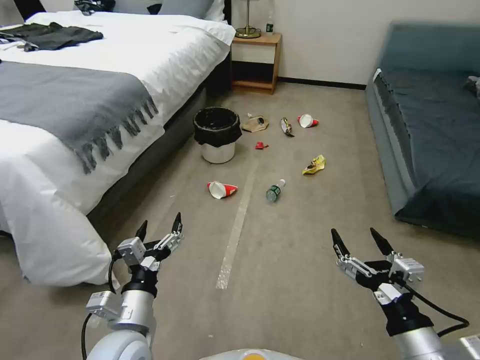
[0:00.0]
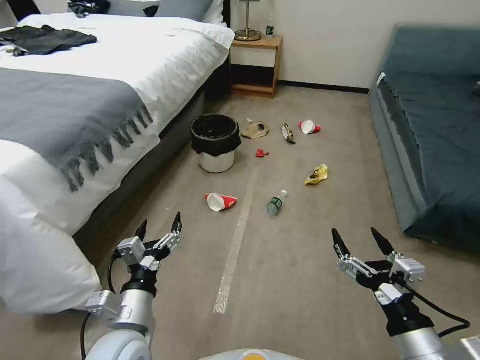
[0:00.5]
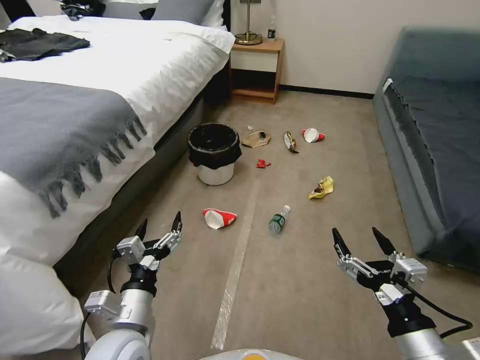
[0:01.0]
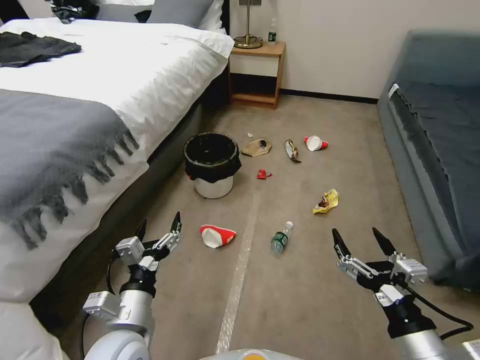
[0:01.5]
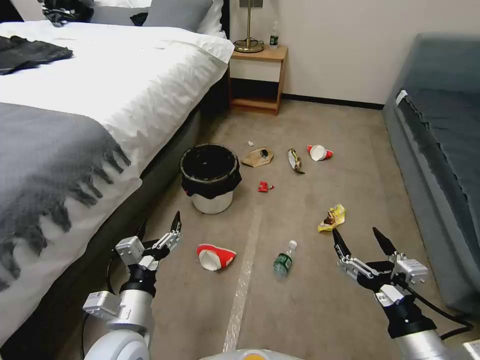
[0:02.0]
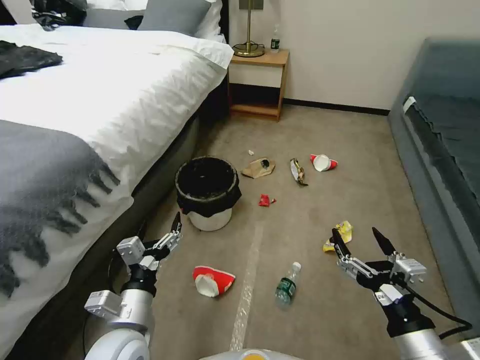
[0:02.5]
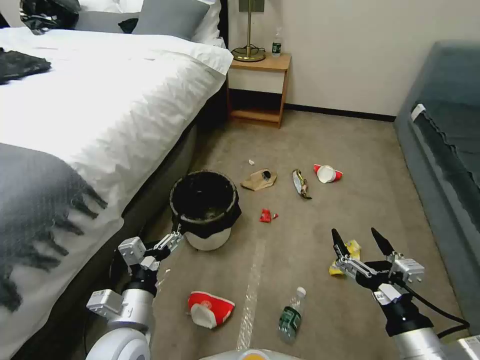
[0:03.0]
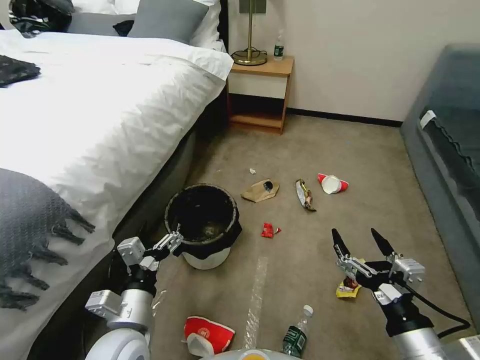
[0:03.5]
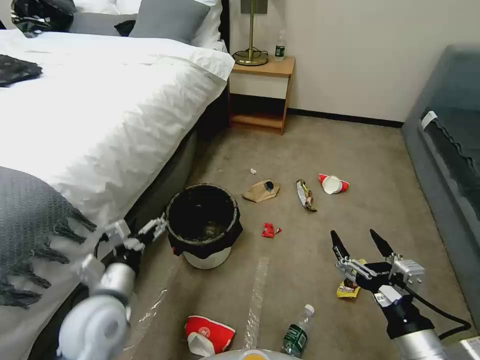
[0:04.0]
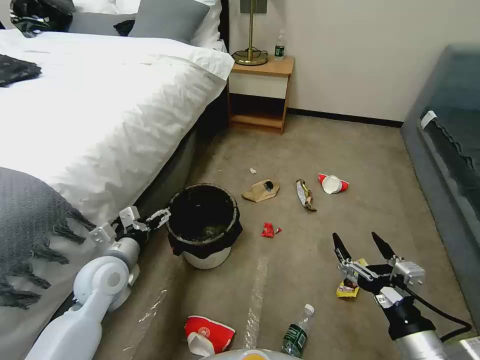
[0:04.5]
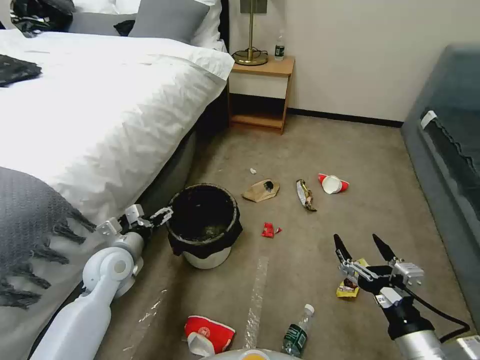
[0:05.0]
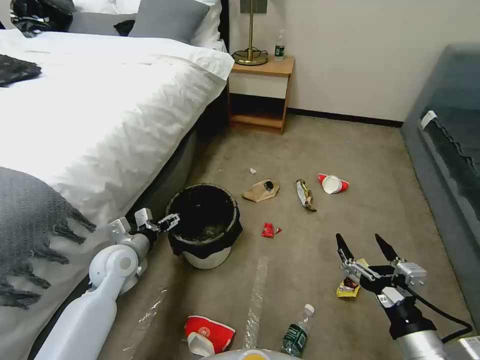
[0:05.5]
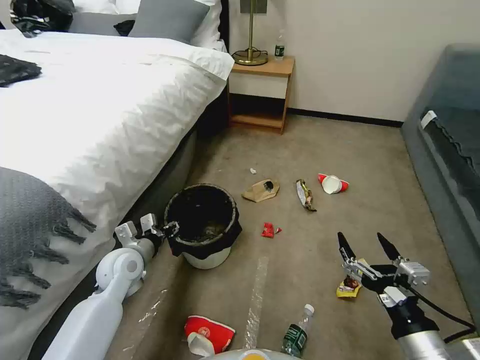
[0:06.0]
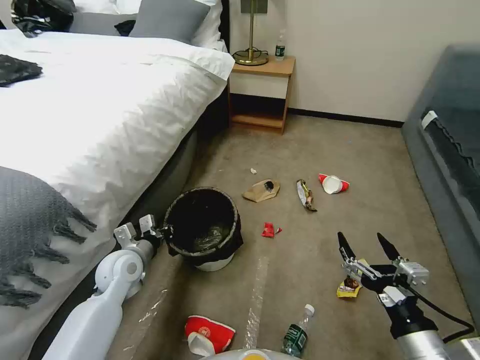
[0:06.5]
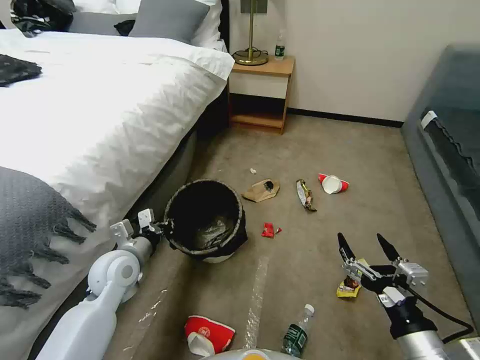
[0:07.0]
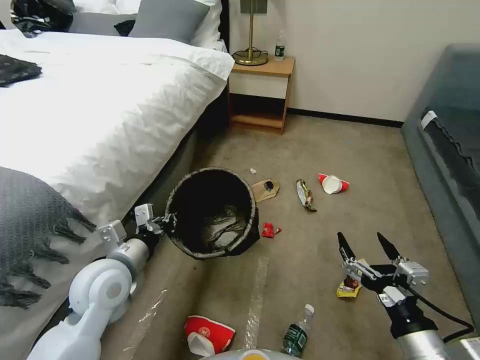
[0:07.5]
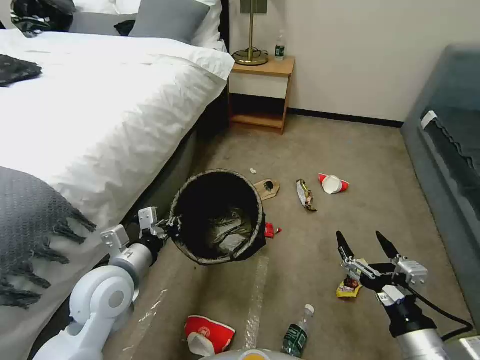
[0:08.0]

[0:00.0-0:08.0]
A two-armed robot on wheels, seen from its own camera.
Task of the whole recording: Pick up the trash can from the floor.
0:02.0 to 0:04.0: The left gripper moves about 5 cm.
0:04.0 to 0:06.0: The left gripper goes about 15 cm forward and downward, and closes up.
0:06.0 to 0:08.0: The left gripper moves upward and backward, roughly 15 cm, and closes.
